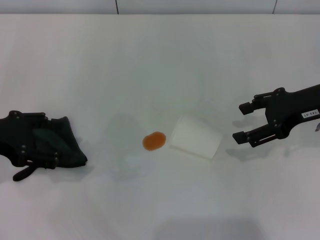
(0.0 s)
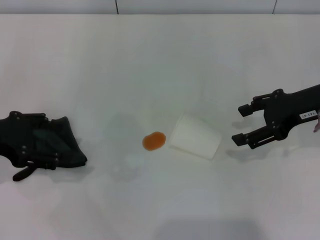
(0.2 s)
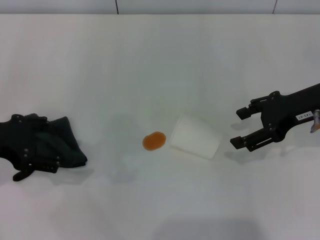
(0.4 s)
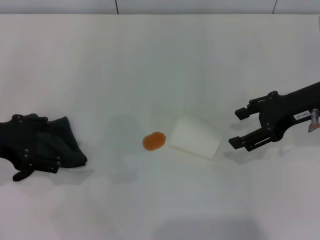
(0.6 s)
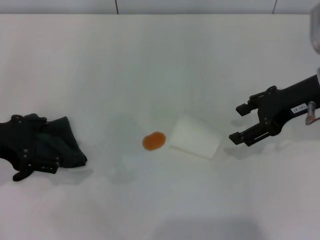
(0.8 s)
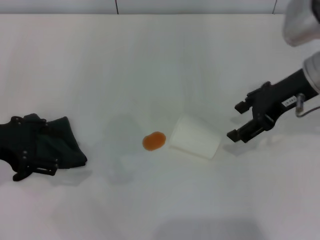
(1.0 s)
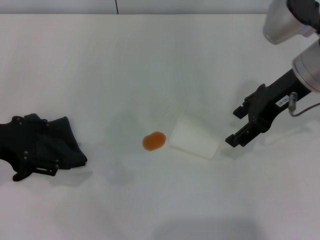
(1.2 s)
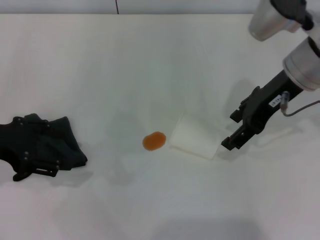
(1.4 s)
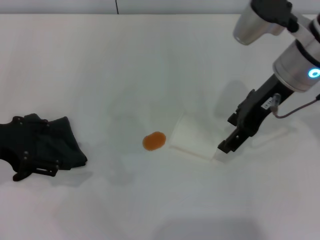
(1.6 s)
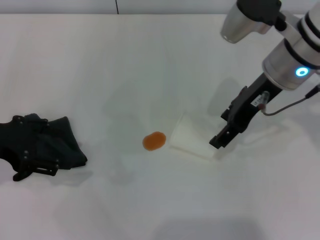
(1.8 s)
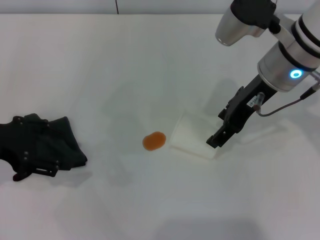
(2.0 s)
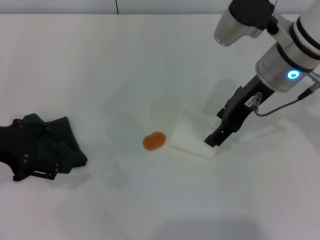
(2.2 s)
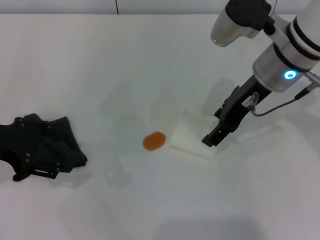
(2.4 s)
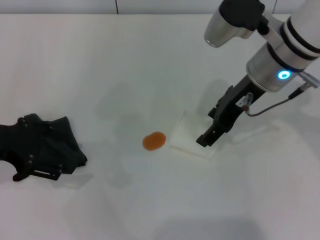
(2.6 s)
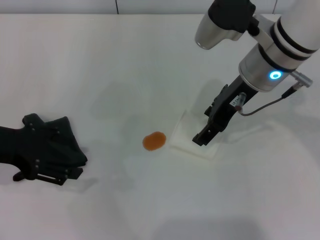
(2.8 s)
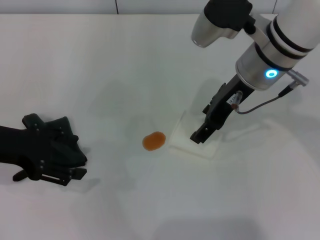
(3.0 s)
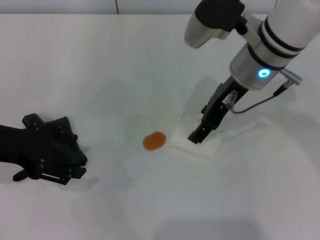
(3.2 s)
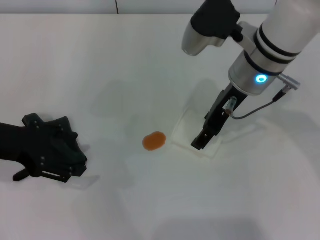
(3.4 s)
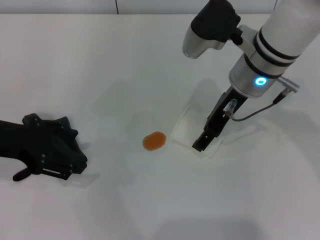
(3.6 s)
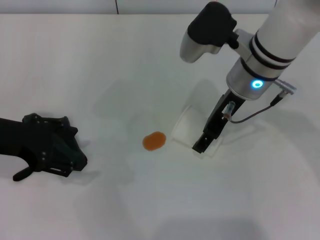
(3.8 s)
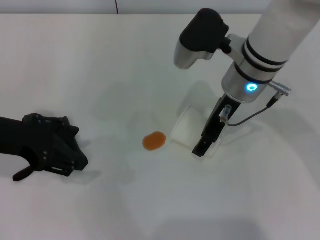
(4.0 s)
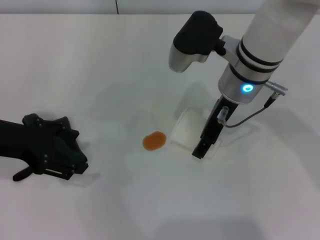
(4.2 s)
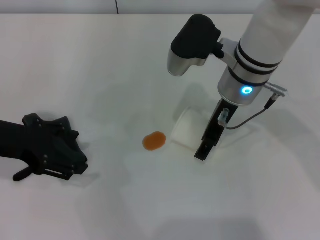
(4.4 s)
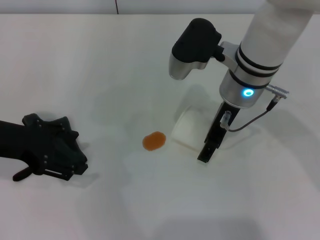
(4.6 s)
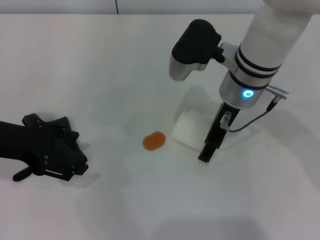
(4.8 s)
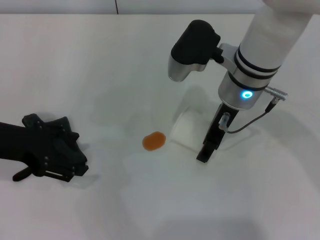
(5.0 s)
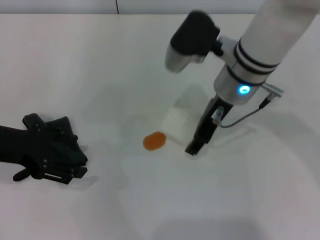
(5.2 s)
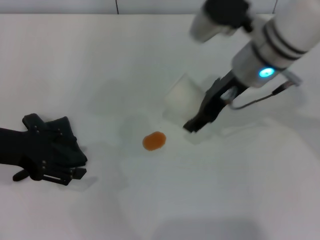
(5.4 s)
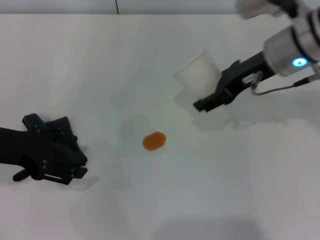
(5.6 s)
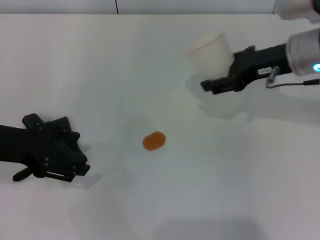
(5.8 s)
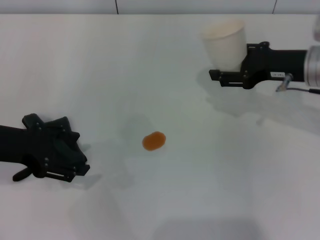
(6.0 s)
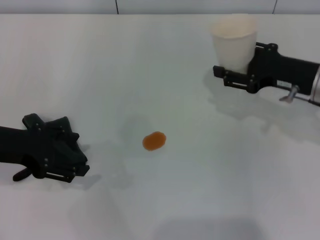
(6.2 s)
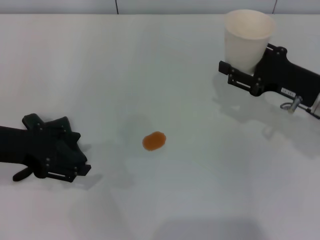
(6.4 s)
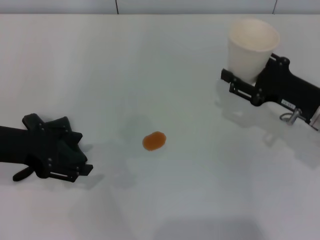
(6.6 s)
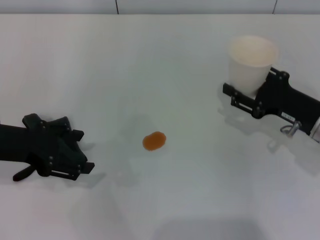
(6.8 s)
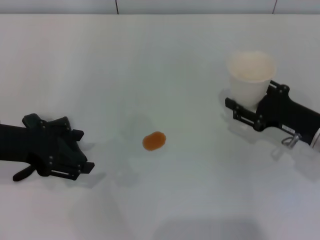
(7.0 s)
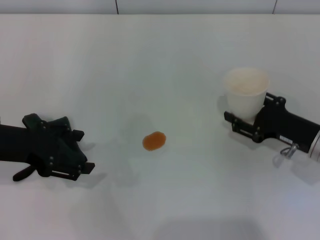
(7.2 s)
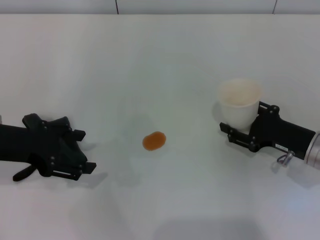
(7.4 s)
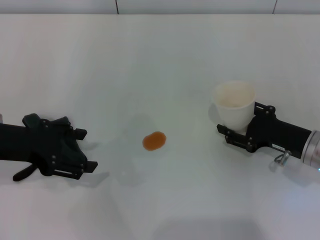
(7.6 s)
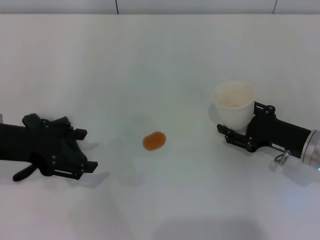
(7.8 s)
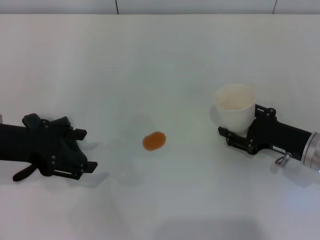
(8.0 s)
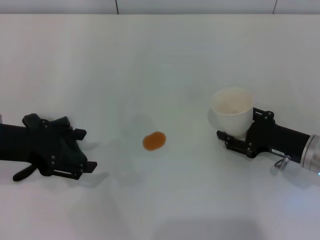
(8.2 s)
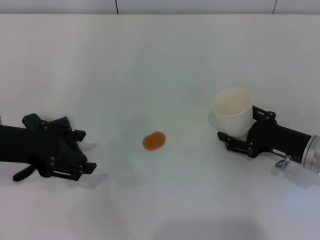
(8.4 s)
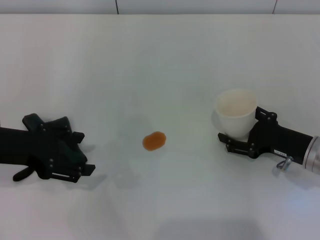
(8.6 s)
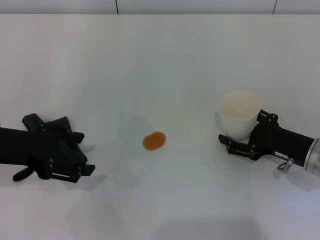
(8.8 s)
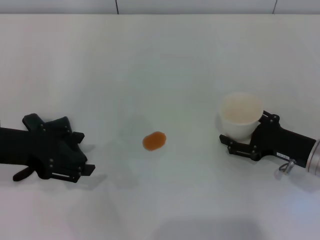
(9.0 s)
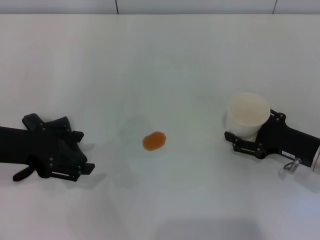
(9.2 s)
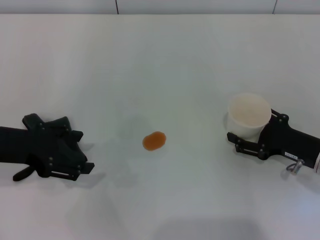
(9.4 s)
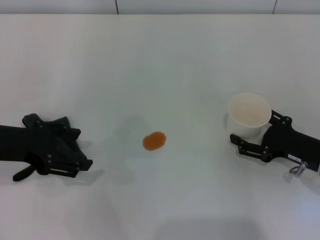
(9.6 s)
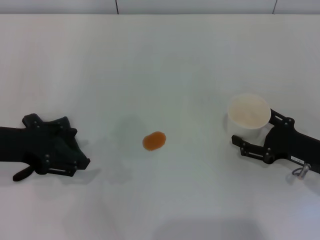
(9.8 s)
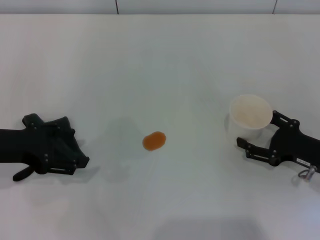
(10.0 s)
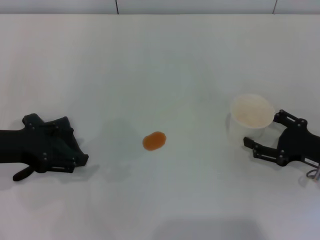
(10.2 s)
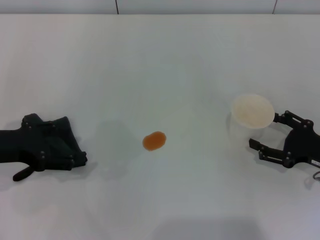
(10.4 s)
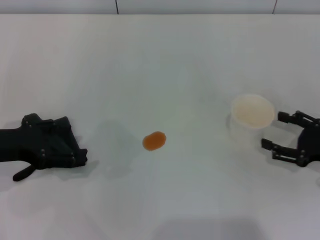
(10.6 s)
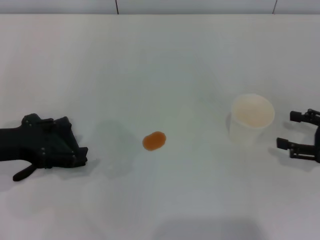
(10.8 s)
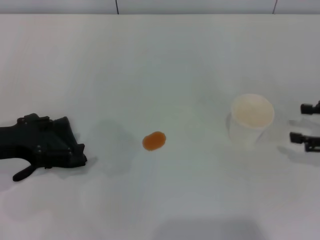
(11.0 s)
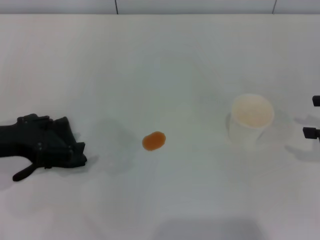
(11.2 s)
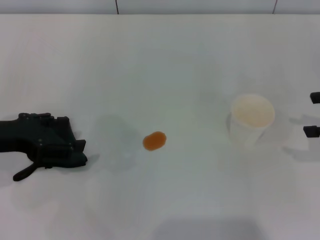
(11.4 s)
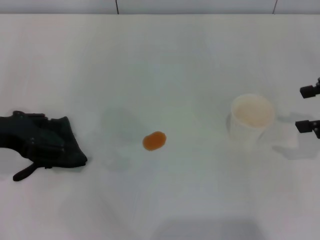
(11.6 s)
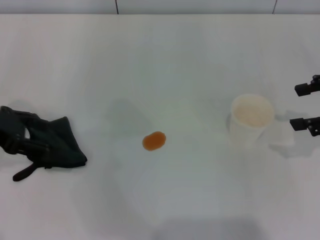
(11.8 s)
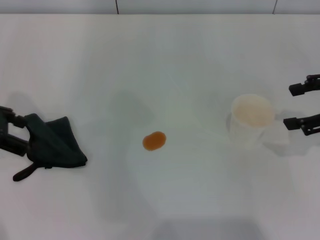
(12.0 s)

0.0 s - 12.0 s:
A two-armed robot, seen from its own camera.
Step, 0.0 s - 4.6 s: Grasp the paper cup with the right gripper.
Step, 5.0 s - 10.0 s: Stand the paper cup upright with the right gripper.
0.0 s - 1.6 s: The right gripper moves to the left, about 10 cm.
1.6 s - 3.0 s: The grippers stay close to where they were, moving slightly.
3.0 s - 4.4 s: The grippers stay close to where they were, moving slightly.
4.4 s - 6.0 s: The right gripper goes about 15 cm to the right, and closes.
6.0 s - 7.6 s: The right gripper heads downward and backward, covering approximately 15 cm.
7.6 s - 9.0 s: The right gripper opens its fingers.
9.0 s - 10.4 s: The right gripper shifts by some 5 cm.
10.4 s - 12.0 s: The right gripper is displaced upward by some 15 cm. Meanwhile the left gripper is displaced upward and forward by some 10 cm.

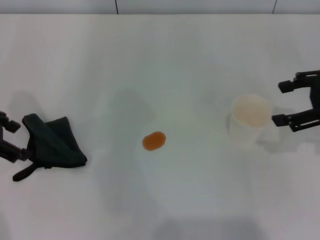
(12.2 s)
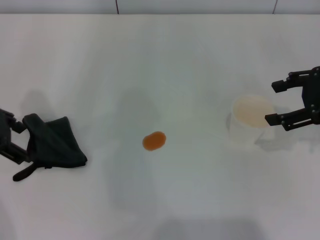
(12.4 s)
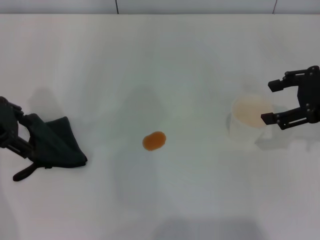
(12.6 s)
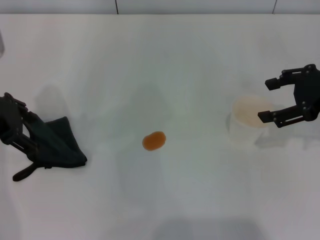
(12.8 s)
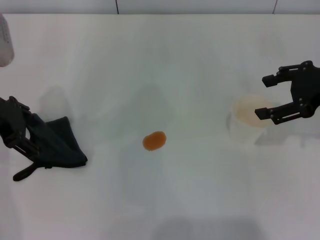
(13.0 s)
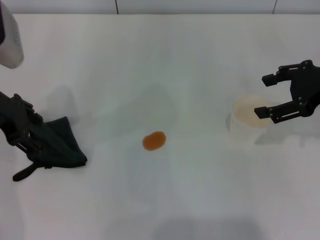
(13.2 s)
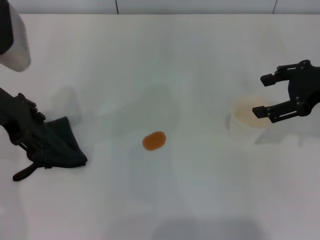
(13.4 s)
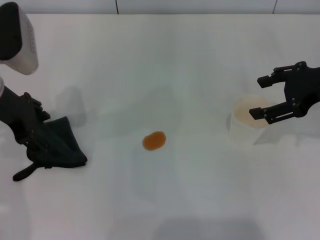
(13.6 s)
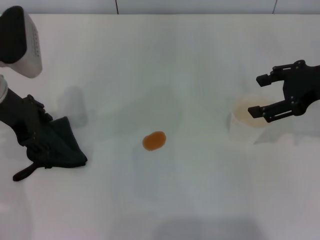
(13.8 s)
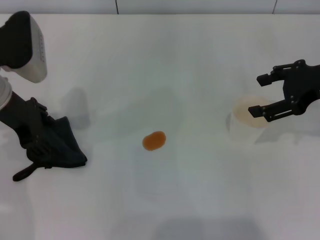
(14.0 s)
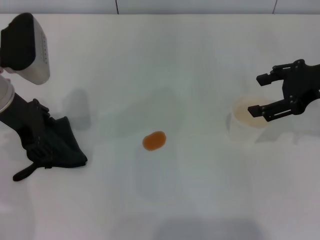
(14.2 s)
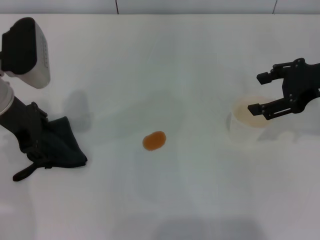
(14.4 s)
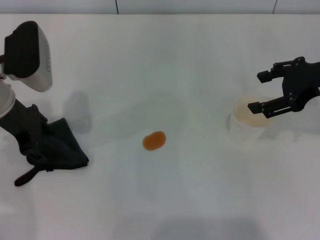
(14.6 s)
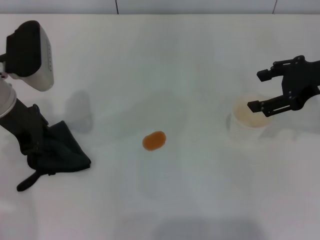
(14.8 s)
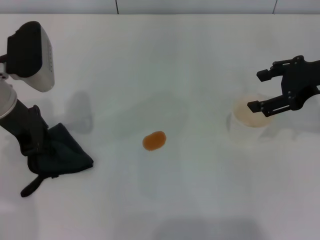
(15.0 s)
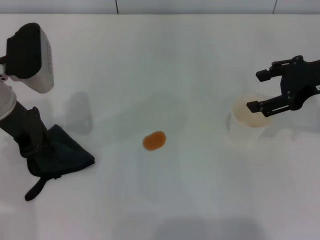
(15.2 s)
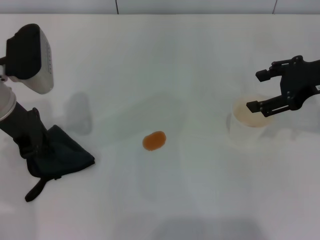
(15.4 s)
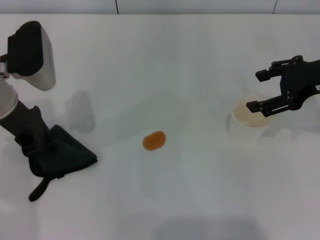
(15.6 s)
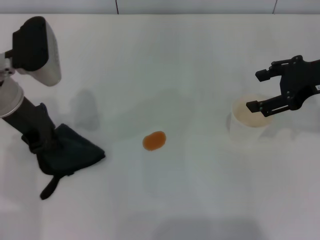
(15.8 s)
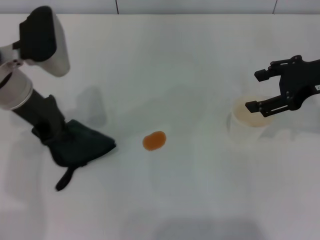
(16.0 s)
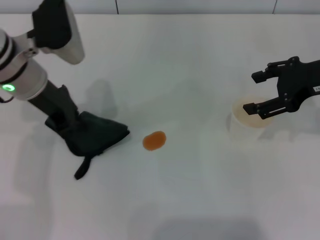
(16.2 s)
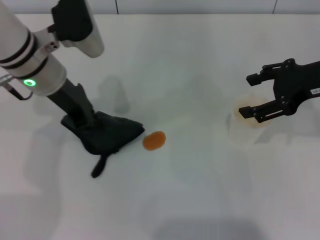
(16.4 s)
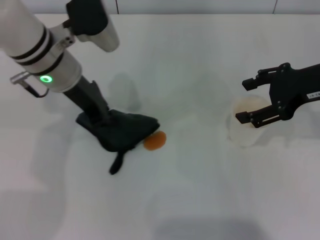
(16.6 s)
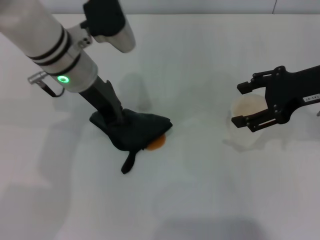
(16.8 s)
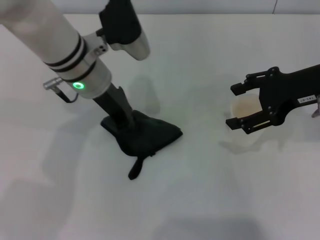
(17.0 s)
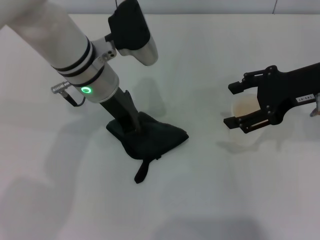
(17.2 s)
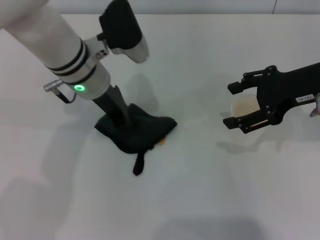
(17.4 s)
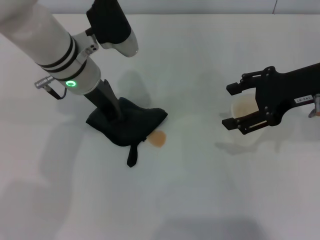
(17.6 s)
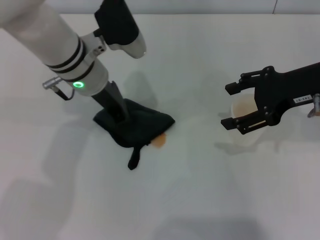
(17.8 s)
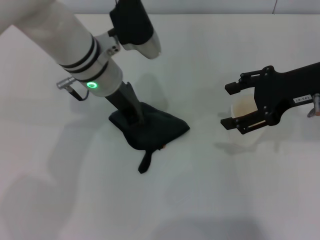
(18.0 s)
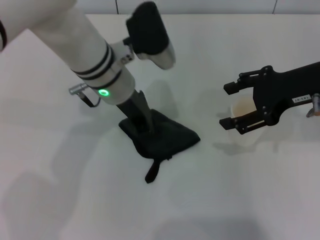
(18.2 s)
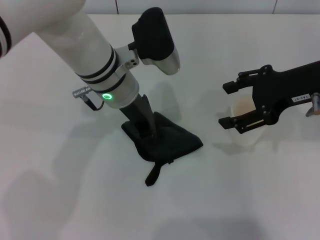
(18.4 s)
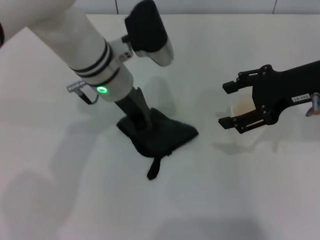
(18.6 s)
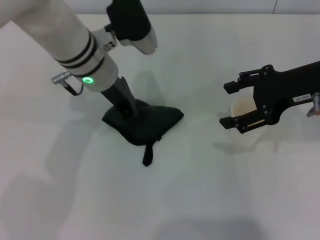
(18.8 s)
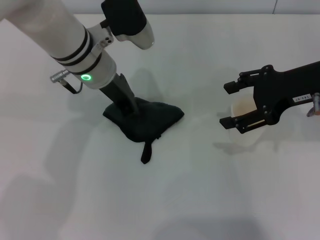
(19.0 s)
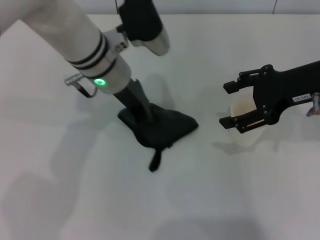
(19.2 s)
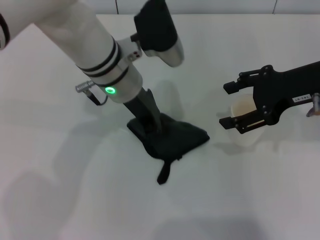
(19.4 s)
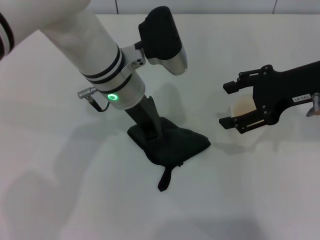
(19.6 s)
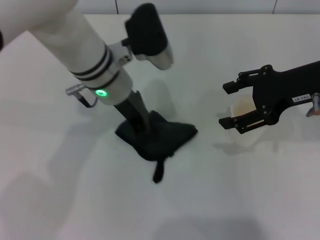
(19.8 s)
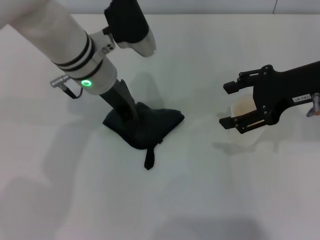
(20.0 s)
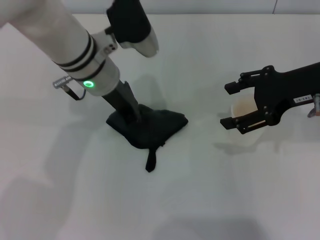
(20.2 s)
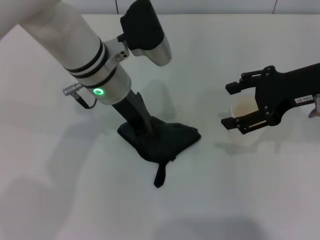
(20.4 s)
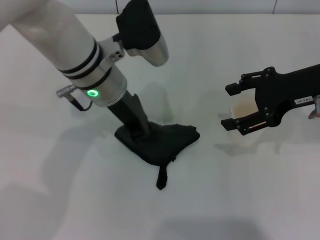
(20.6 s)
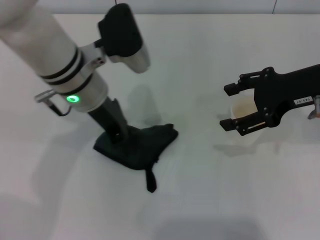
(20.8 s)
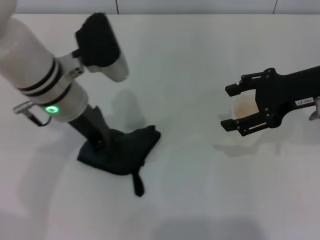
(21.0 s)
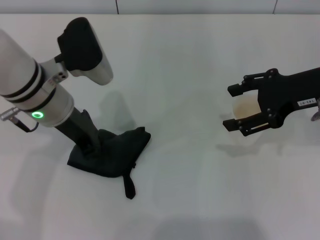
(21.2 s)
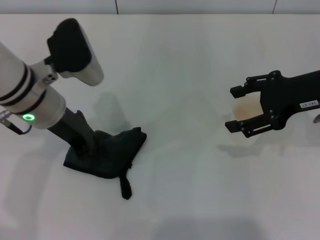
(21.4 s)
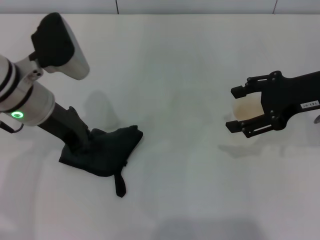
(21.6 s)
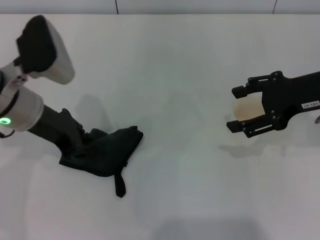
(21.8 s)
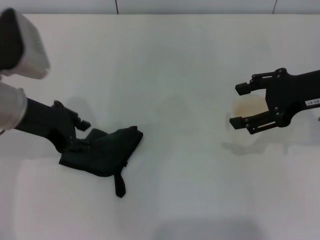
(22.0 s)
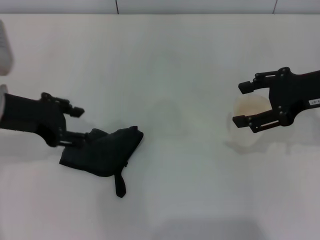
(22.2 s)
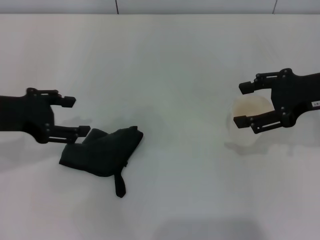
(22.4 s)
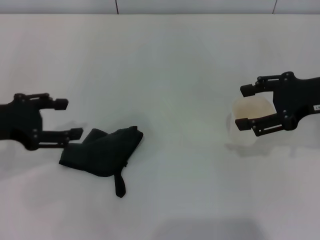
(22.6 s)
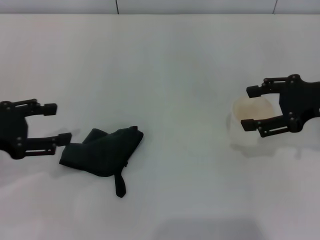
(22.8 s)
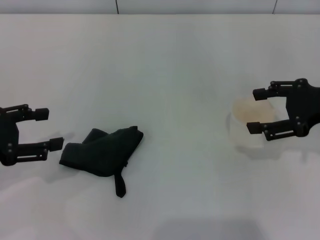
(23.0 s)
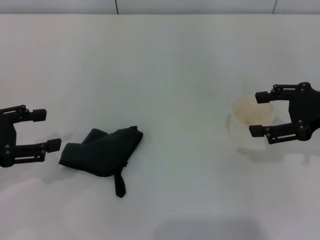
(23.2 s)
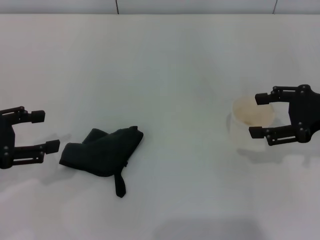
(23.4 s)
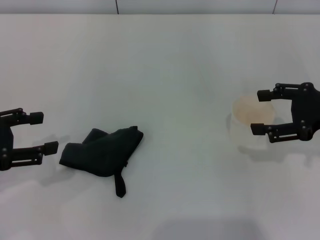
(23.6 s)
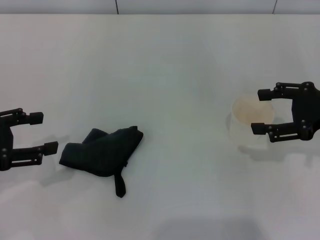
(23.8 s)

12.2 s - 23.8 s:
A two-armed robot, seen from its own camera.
Step, 12.2 s - 15.2 s: Grasp the rag with the left gripper.
Step, 15.4 s - 21.2 s: Wipe the stains off the table with the left gripper.
Step, 21.6 s - 22.2 s: Place the rag on the table with the left gripper.
12.2 s - 13.6 s: The left gripper goes some 5 cm to the right.
13.6 s - 15.0 s: The left gripper closes up.
15.0 s - 16.6 s: The left gripper goes about 10 cm to the right.
16.6 s - 18.0 s: The left gripper travels to the right by roughly 5 cm.
18.0 s - 19.4 s: The grippers move only a little.
19.4 s - 21.0 s: The left gripper is displaced to the left by about 5 cm.
21.0 s - 22.4 s: The left gripper is displaced to the left by approximately 15 cm, and opens up.
22.4 s - 23.8 s: The right gripper ends up some 5 cm from where it was. The left gripper moves to the left and backward, about 10 cm.
